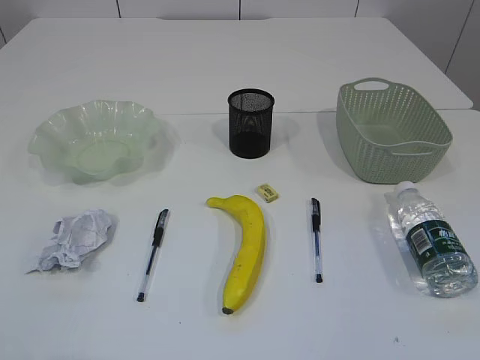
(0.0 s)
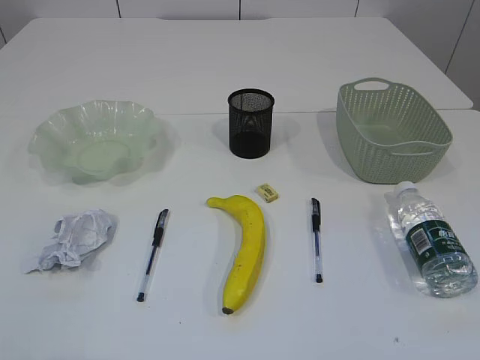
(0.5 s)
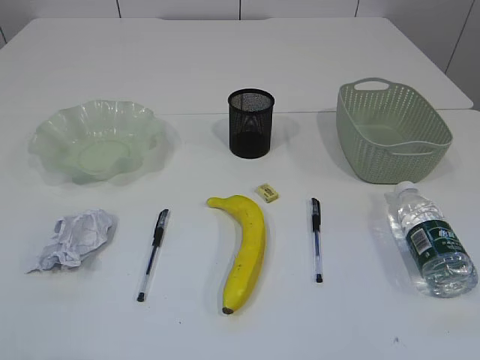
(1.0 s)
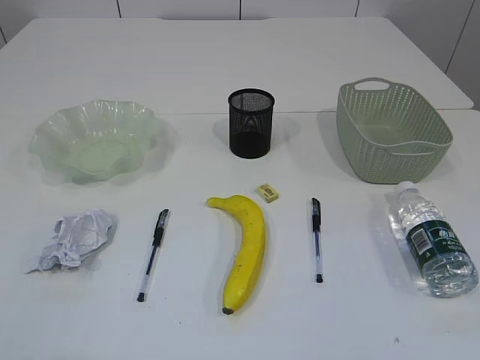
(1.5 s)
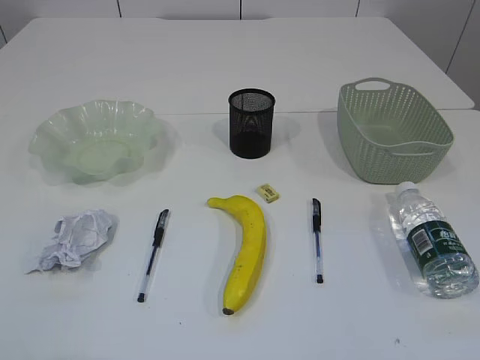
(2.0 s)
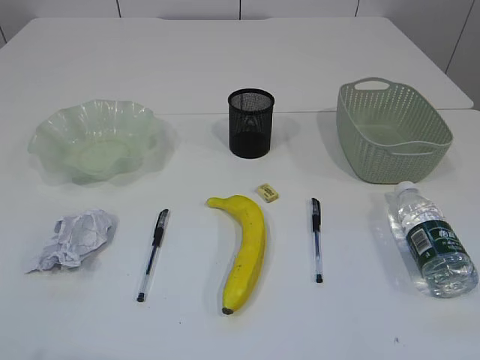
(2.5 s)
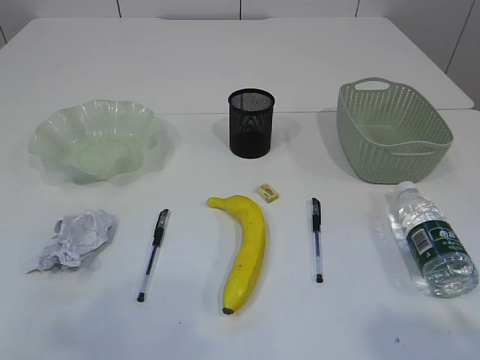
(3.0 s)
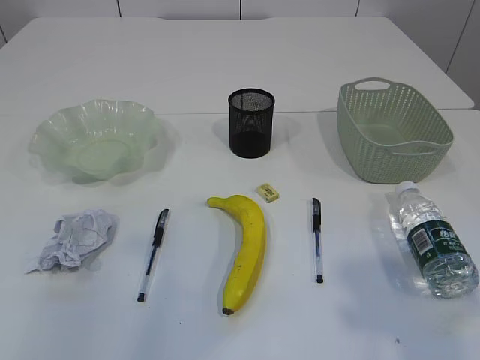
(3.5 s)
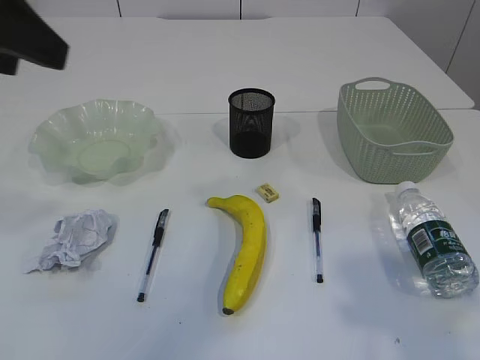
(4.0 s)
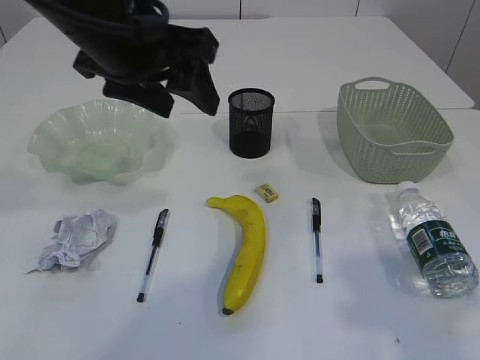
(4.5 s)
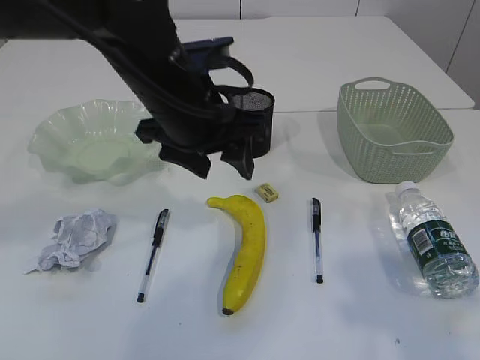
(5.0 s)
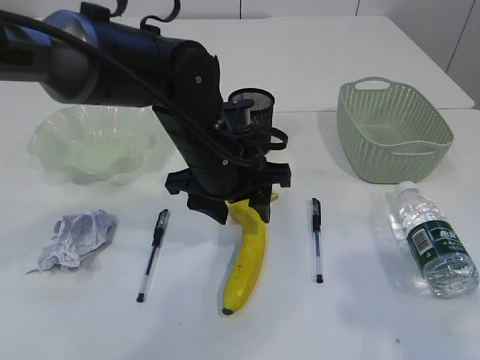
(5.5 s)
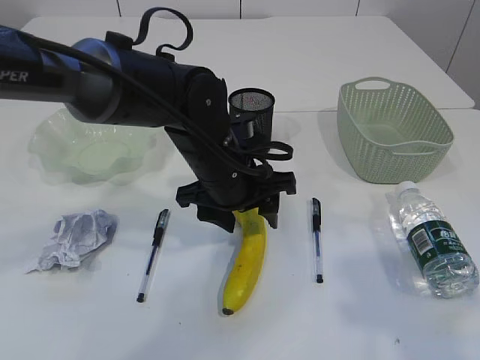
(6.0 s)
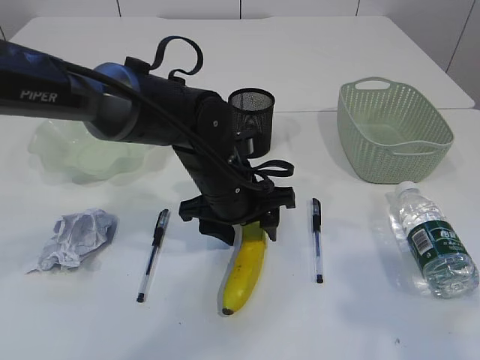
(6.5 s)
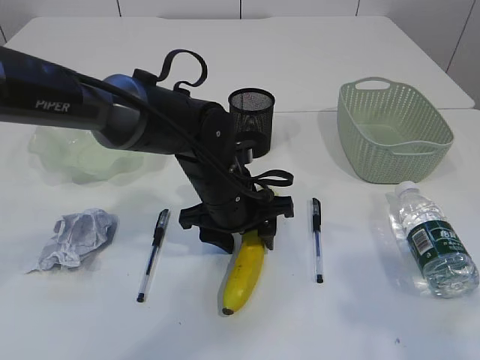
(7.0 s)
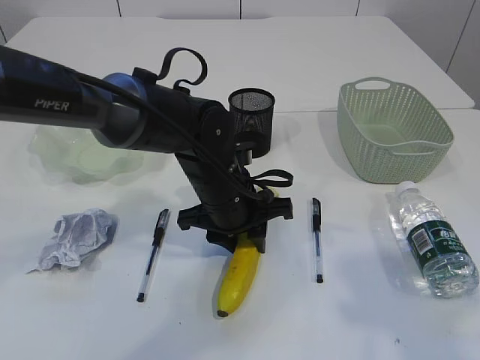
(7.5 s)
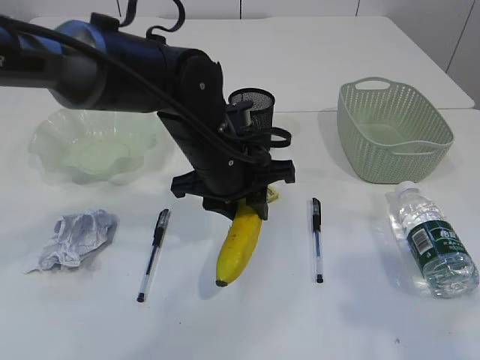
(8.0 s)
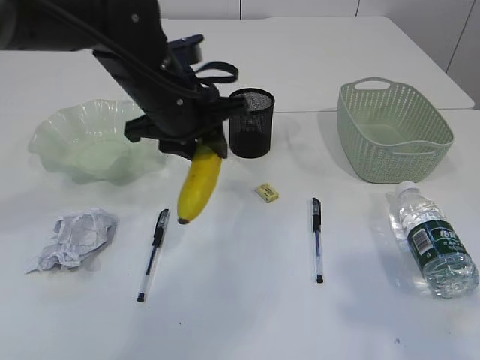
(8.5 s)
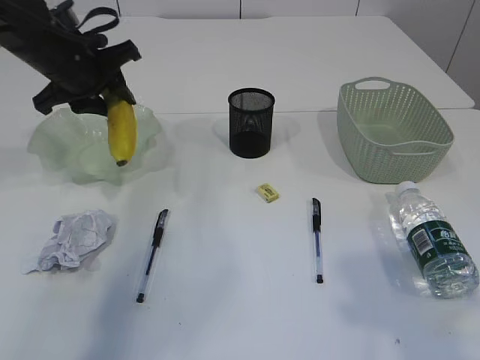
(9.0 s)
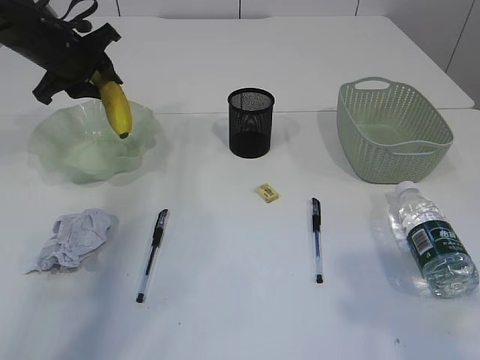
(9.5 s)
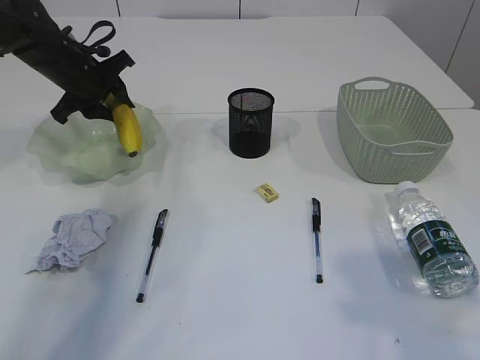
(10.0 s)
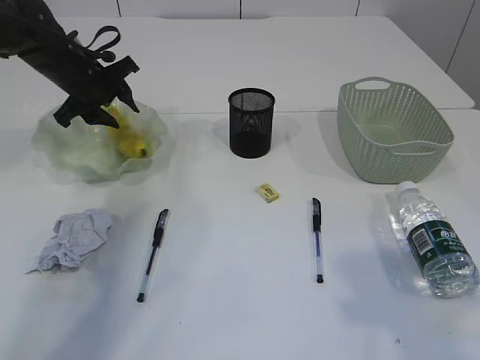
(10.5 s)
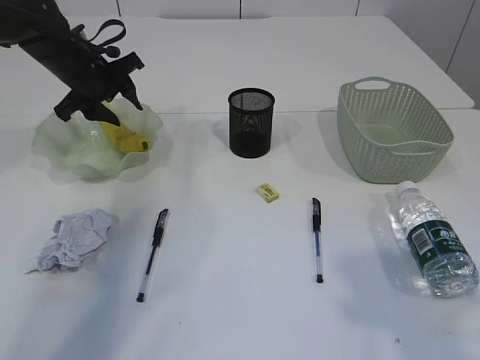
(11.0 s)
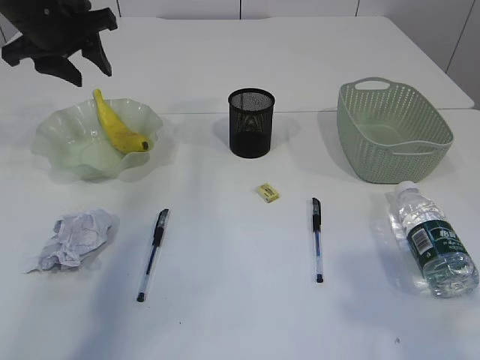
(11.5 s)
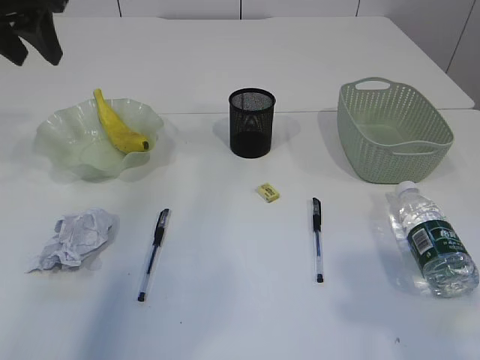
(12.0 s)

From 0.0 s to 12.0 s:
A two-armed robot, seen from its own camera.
Step, from 8.5 s to 11.0 s: Place the banana in the plate.
From 2.0 s to 4.0 s: The left gripper moves forward, upward and to the right, about 25 cm, while the right gripper is displaced forward and upward by roughly 15 cm.
From 4.0 s to 6.0 s: The left gripper heads downward, to the right and forward, covering some 35 cm.
From 6.0 s to 8.0 s: The left gripper closes.
From 8.0 s to 10.0 s: The left gripper heads to the left and forward, covering some 30 cm.
From 10.0 s to 12.0 s: The left gripper travels upward and backward by some 20 cm.

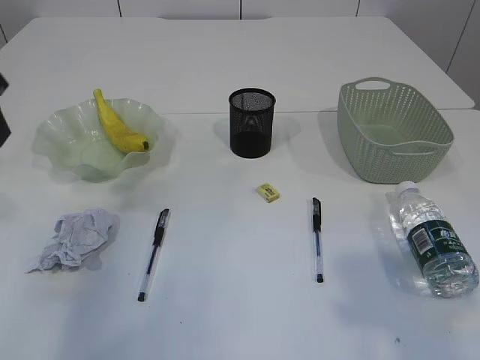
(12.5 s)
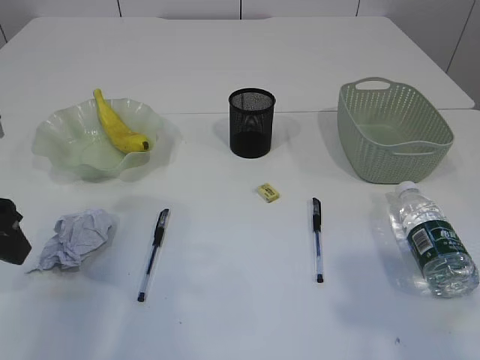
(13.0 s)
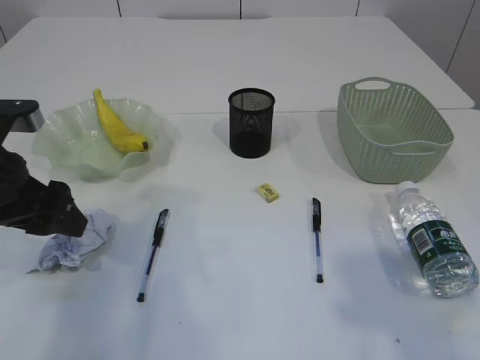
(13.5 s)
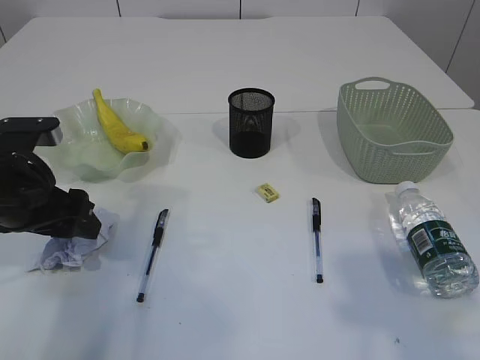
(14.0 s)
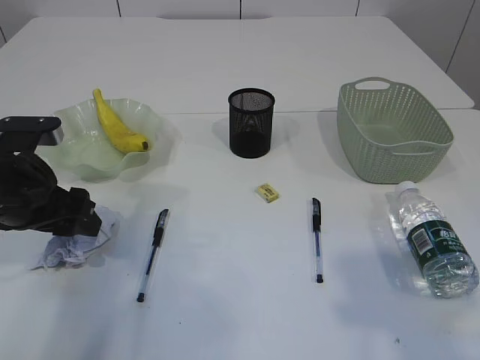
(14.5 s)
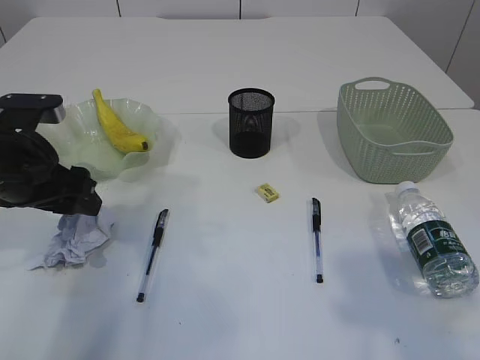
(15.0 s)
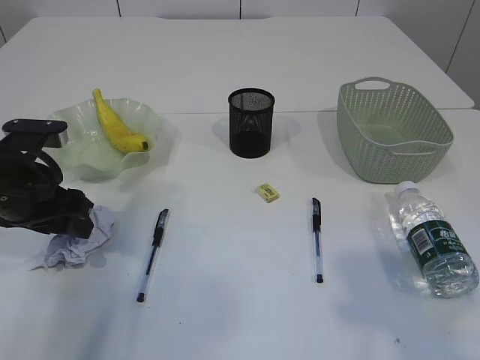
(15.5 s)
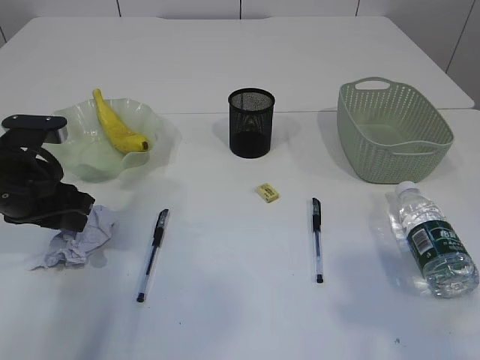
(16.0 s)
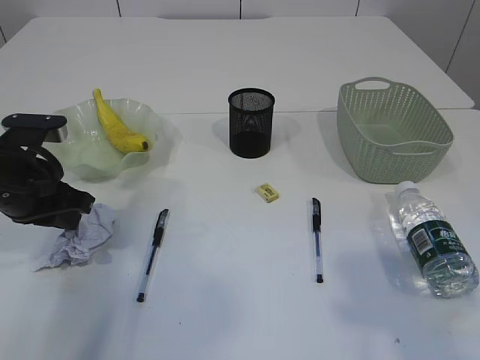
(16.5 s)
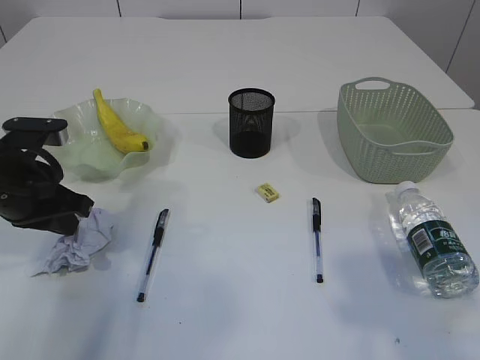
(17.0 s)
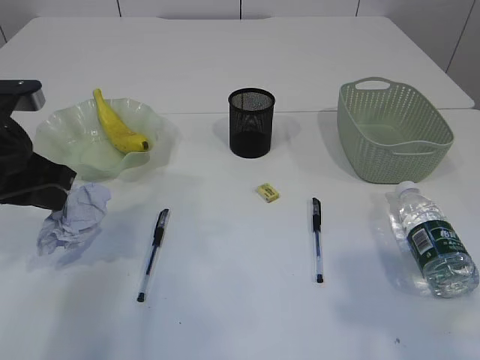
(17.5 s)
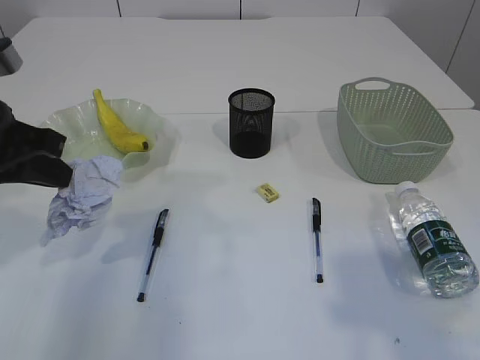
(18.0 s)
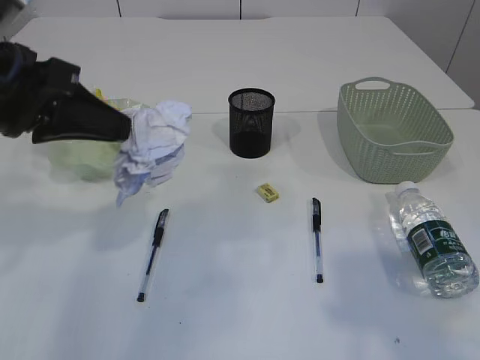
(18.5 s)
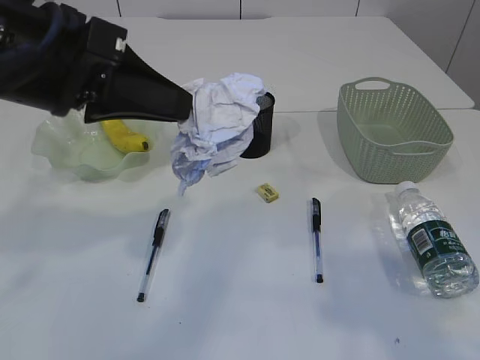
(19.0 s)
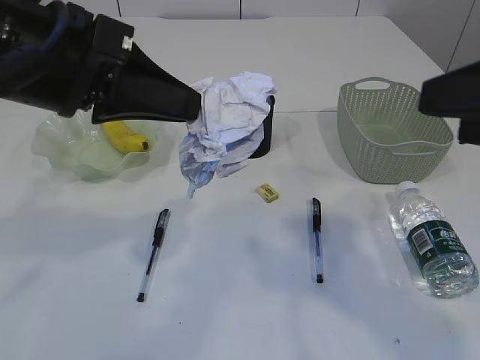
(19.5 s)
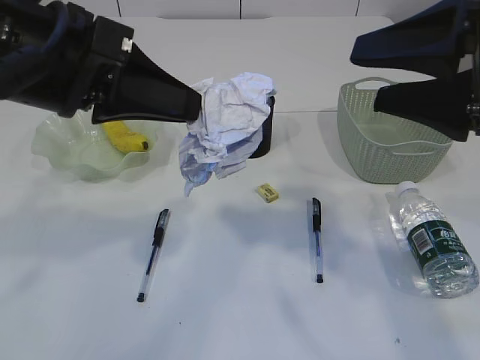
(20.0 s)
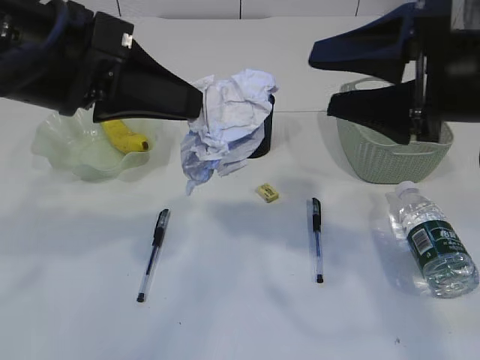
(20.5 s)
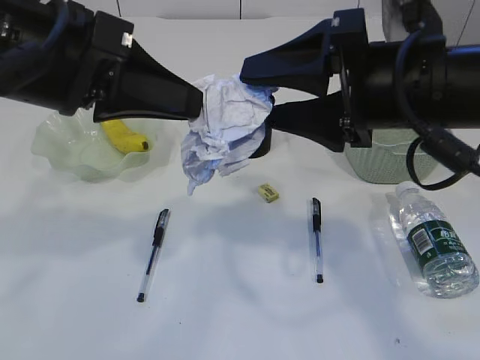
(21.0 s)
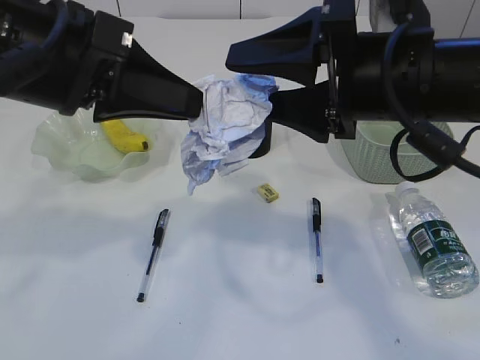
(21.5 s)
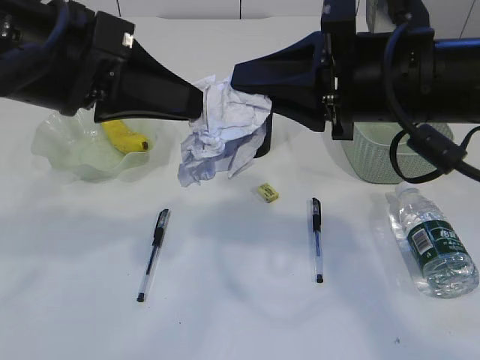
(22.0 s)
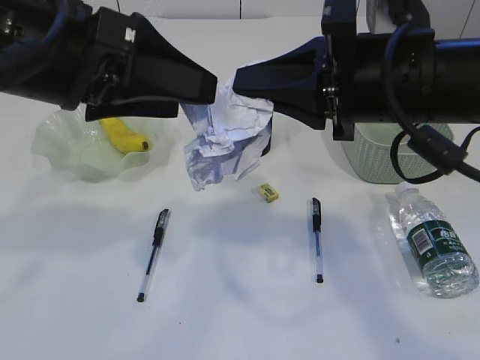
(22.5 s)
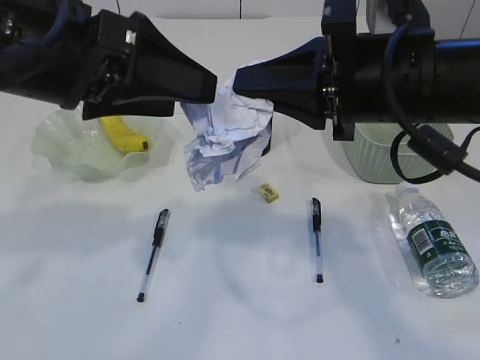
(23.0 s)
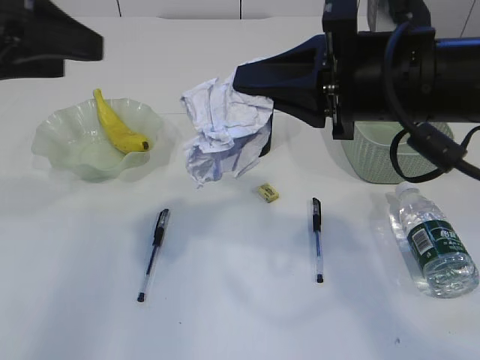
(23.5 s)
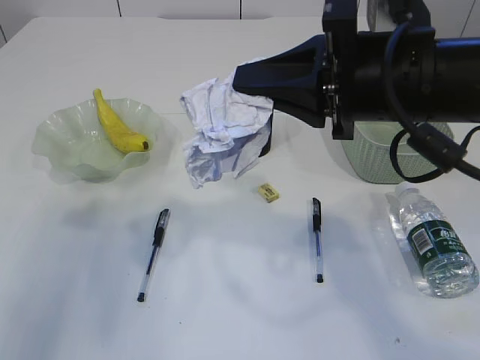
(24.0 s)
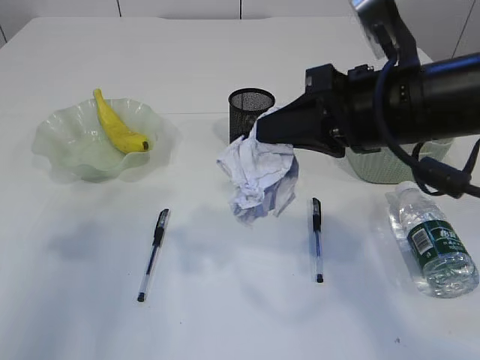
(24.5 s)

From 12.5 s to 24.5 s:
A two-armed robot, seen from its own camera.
Step, from 12.5 s to 18.0 s: Pick up the waste paper.
Step, from 18.5 s to 23.0 s: Hand over the waste paper.
From 12.5 s to 14.5 s: The left gripper shifts roughly 15 cm downward, and opens its fingers.
From 14.5 s to 16.5 s: The left gripper closes up.
From 16.5 s to 18.5 s: The left gripper is displaced upward and backward by roughly 15 cm.
From 18.5 s to 20.5 s: The left gripper heads to the right, covering about 5 cm. The right gripper is displaced forward and to the left by roughly 15 cm.
From 20.5 s to 22.5 s: The right gripper is displaced to the left by about 5 cm, and closes its fingers; the left gripper opens up.
From 22.5 s to 24.5 s: The left gripper moves to the left, some 20 cm.

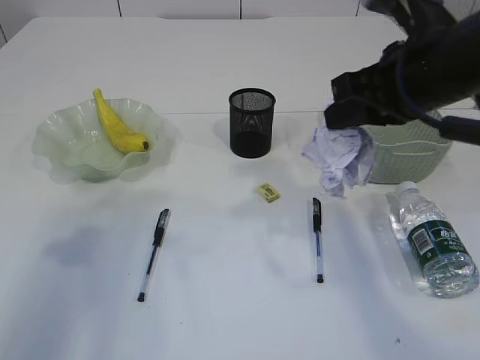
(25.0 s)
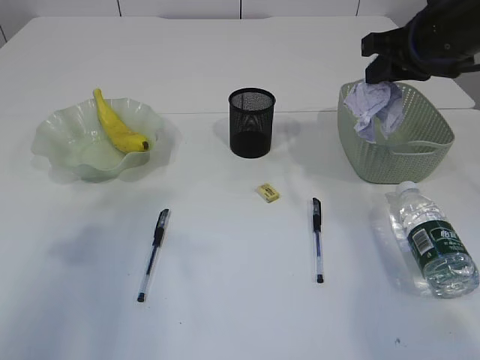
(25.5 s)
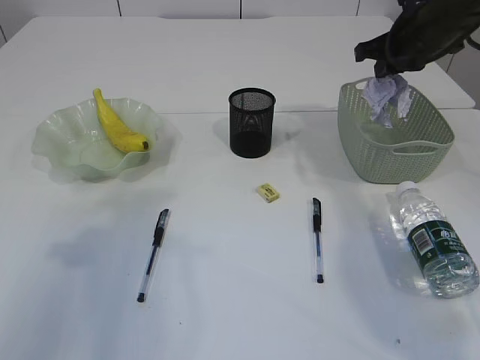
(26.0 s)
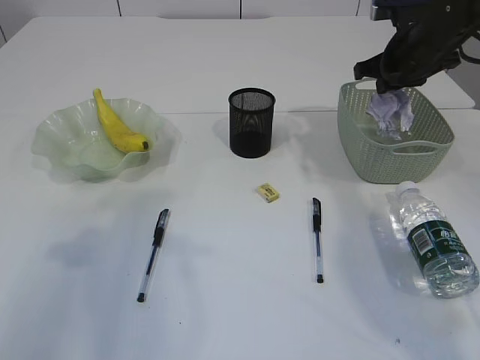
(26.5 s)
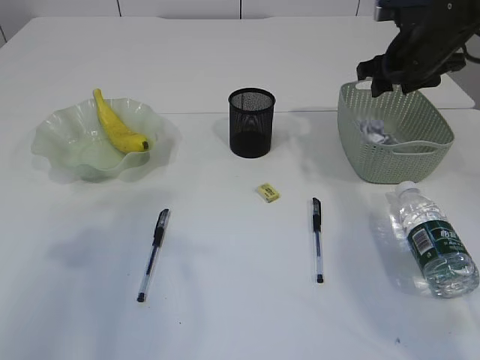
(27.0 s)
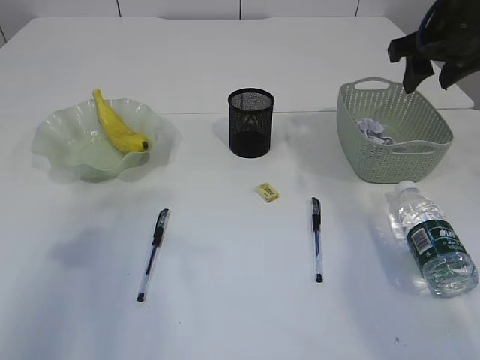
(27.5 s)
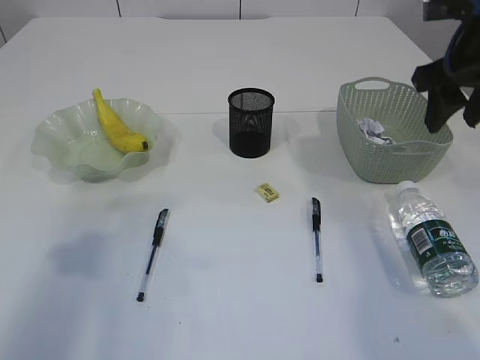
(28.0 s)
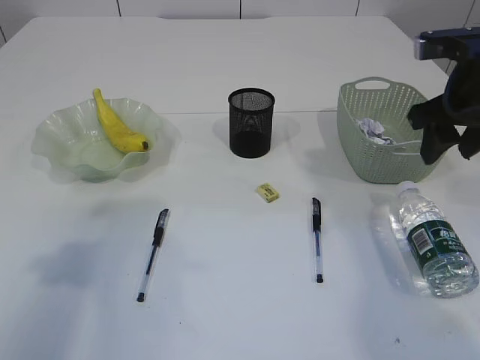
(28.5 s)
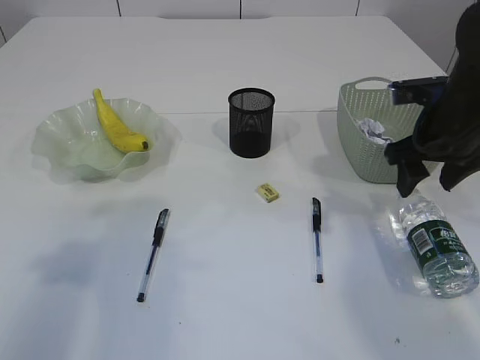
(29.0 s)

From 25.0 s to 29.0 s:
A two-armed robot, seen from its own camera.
Step, from 25.0 s to 27.5 s: Place the waste paper in the basket.
From 25.0 s to 27.0 s: The right gripper goes approximately 20 cm forward and to the right, and opens its fingers.
From 27.0 s to 29.0 s: The right gripper moves backward, approximately 10 cm.
